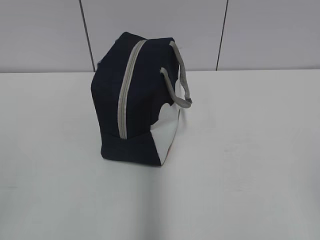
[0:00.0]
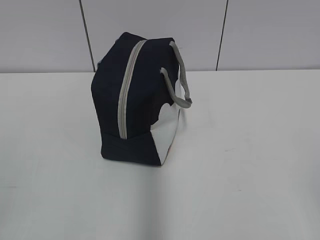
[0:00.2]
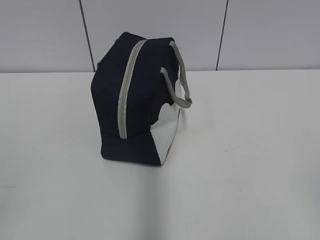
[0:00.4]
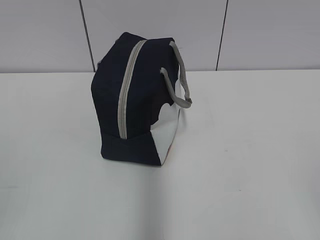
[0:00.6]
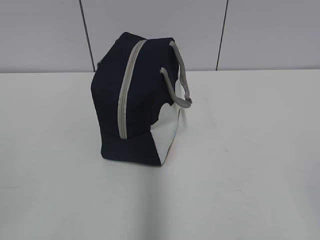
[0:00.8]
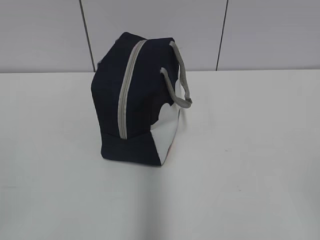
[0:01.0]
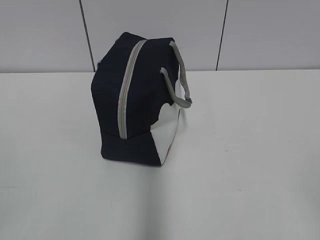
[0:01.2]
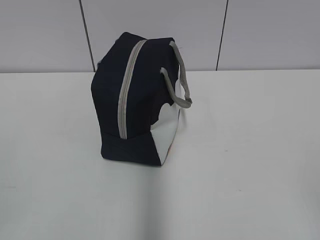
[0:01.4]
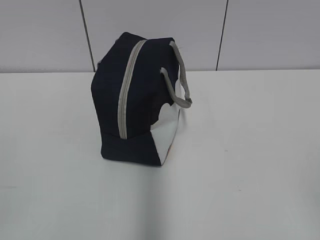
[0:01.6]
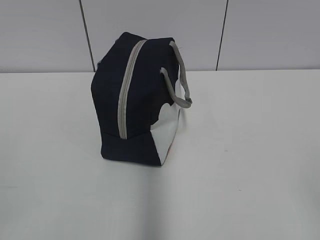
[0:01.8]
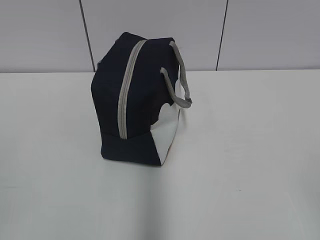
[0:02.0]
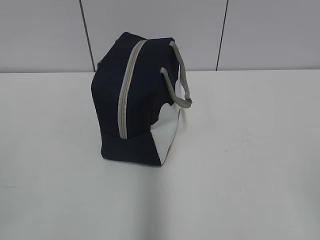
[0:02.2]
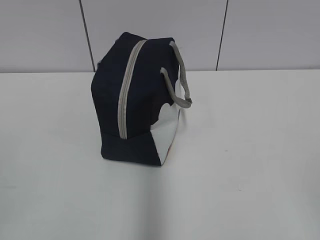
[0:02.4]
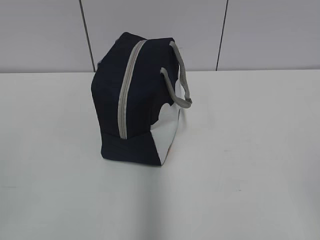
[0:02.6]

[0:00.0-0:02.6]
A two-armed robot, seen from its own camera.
0:01.2 to 0:02.6: Both grippers stay put.

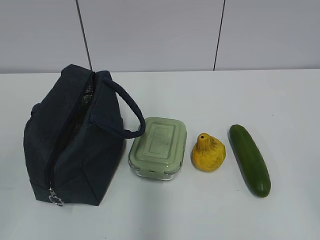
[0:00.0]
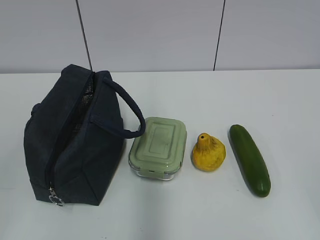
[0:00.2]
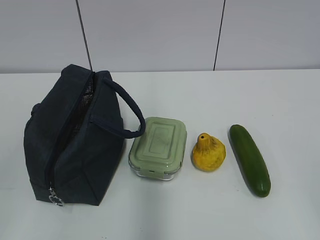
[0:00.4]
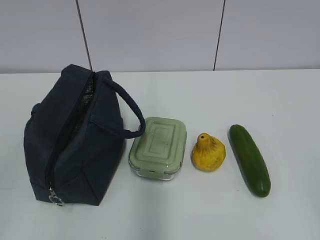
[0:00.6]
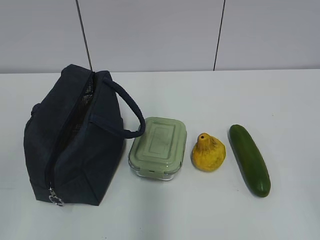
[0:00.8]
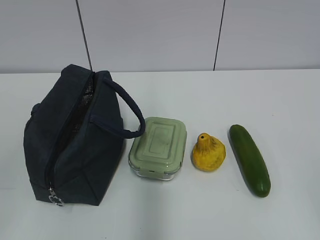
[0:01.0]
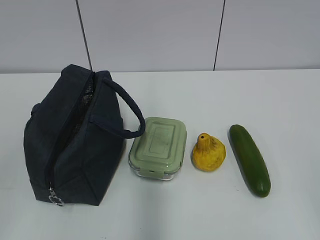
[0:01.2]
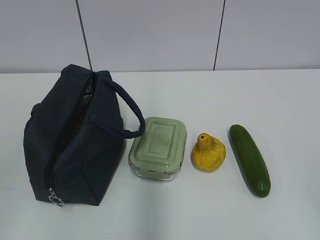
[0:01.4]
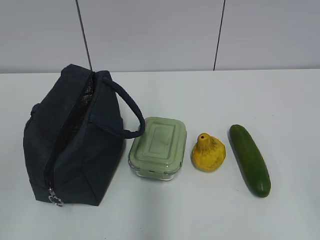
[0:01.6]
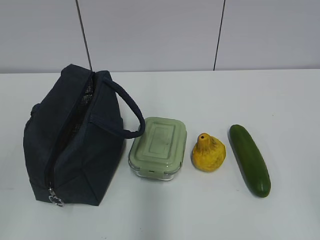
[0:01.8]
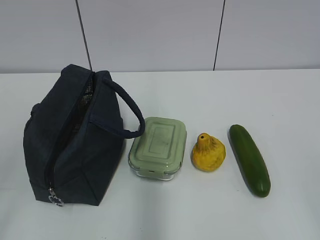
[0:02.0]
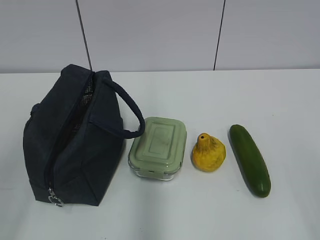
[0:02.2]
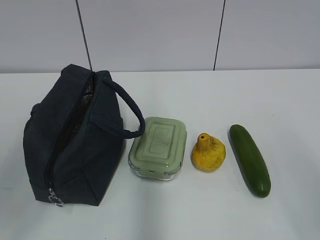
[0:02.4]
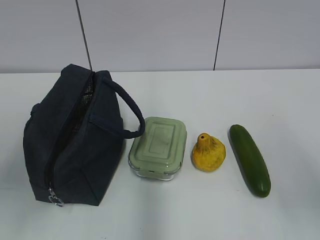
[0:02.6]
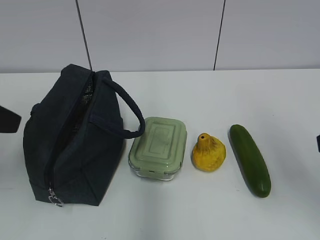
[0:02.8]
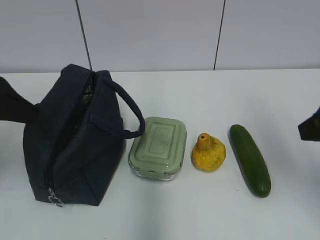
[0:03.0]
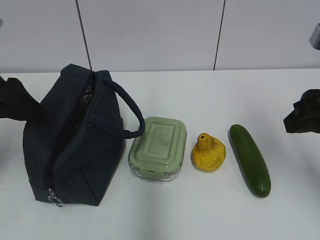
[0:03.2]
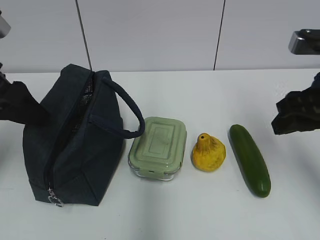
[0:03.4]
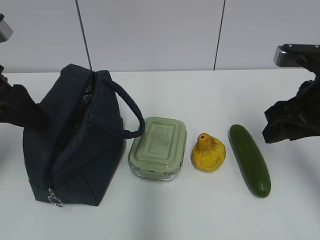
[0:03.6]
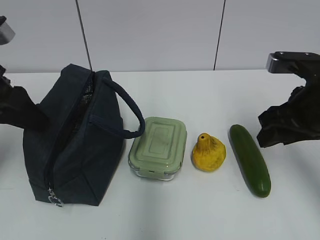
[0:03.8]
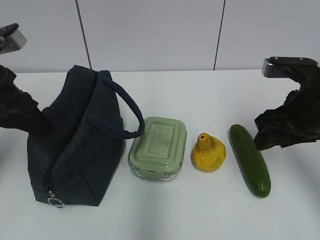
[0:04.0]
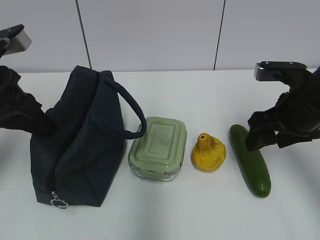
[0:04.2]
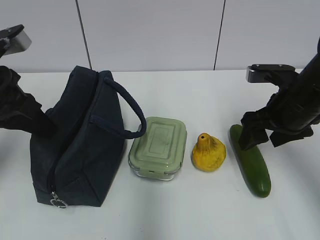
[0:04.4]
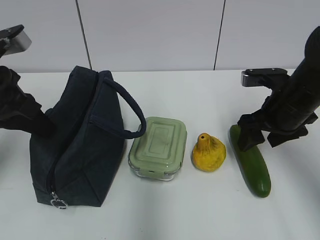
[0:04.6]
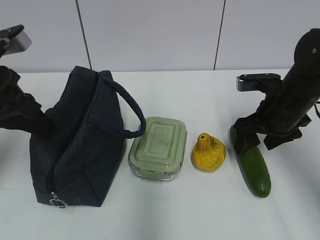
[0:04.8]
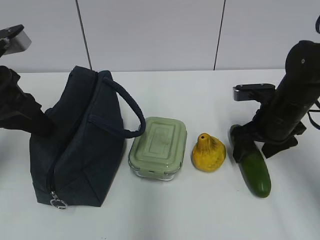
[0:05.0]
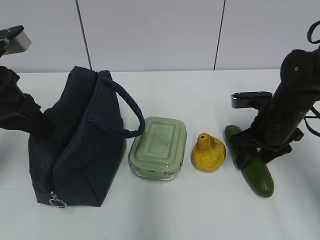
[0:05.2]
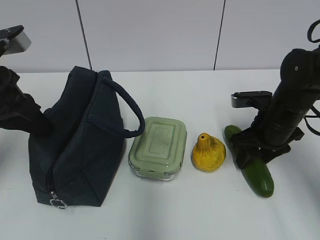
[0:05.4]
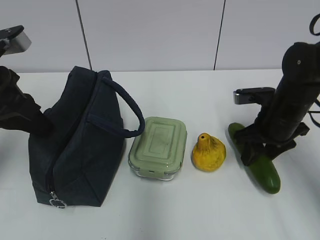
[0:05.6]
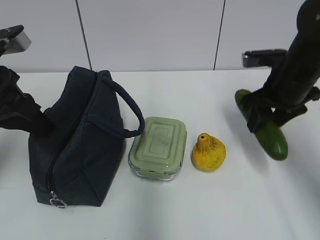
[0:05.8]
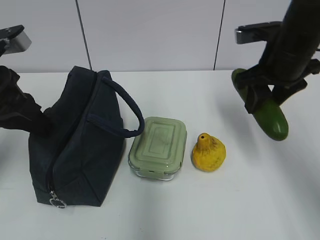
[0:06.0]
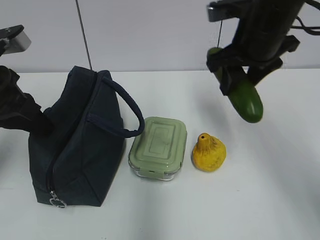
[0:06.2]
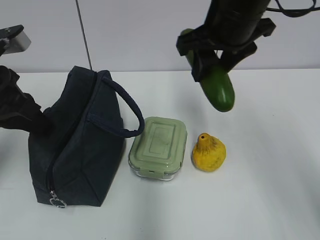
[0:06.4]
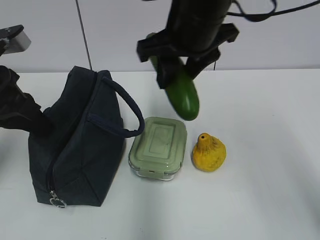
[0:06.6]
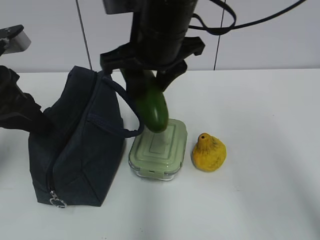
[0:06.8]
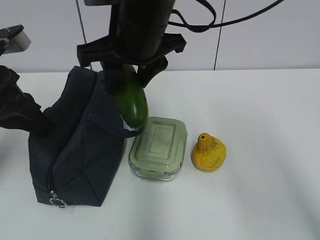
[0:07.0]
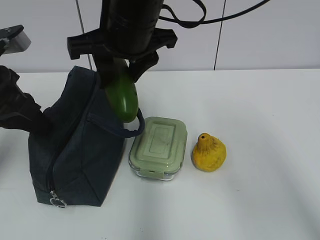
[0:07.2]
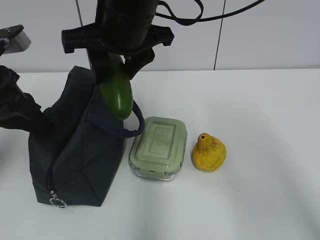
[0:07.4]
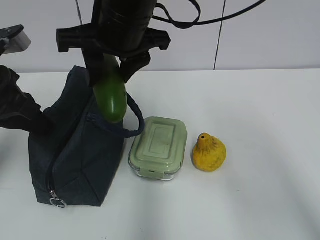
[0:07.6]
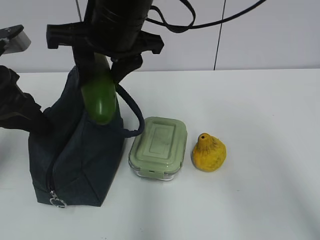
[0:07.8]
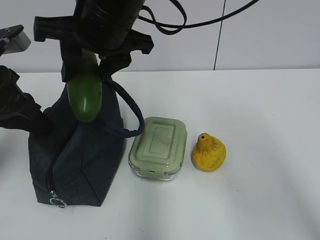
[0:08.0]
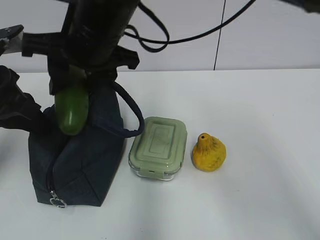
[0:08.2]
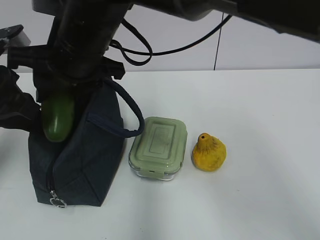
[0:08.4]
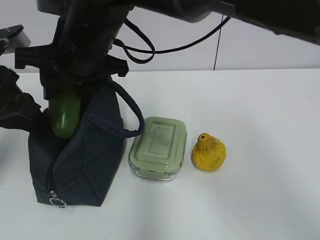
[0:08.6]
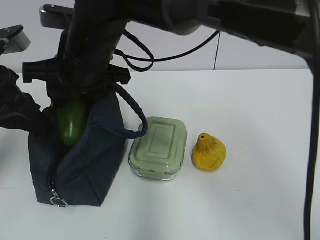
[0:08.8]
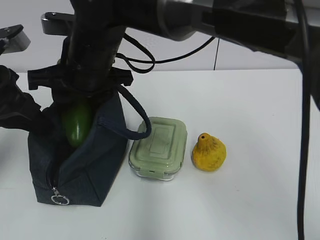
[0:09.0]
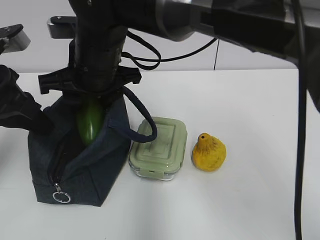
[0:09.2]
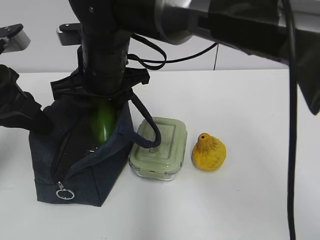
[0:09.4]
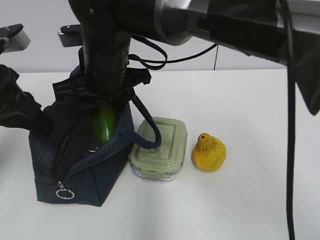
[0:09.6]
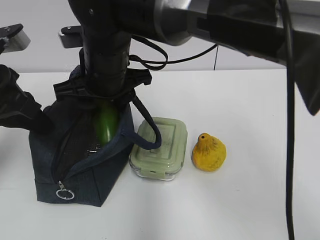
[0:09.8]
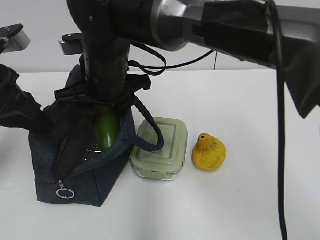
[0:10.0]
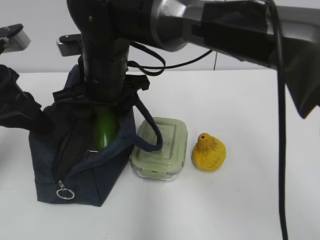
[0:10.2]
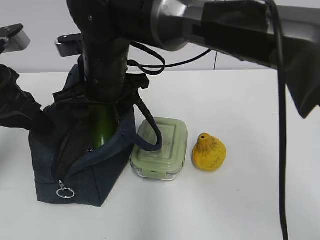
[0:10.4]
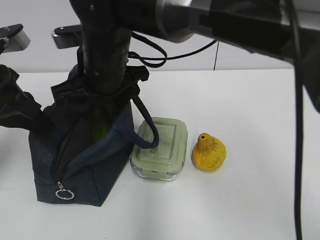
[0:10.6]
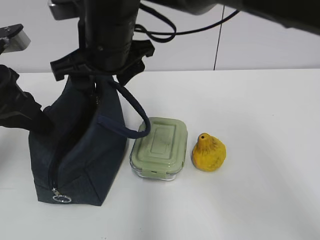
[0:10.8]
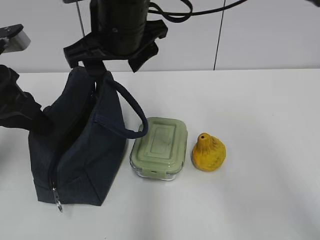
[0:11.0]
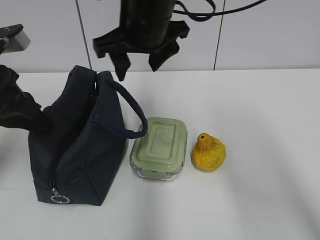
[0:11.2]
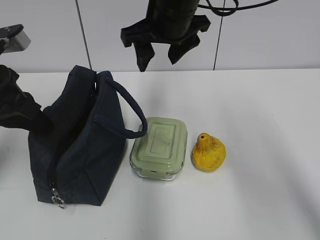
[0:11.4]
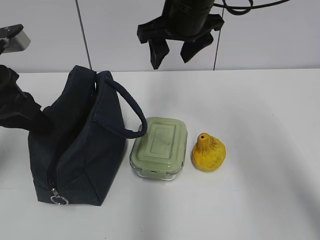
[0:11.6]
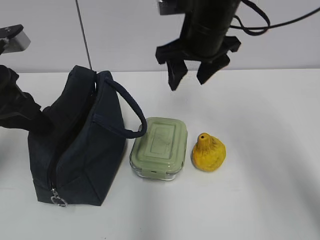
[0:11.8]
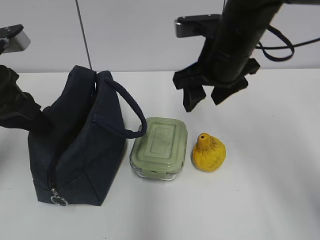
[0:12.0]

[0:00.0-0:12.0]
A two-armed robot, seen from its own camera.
0:01.6 to 0:03.0: The two grippers go about 25 cm forward.
0:03.0 to 0:04.4: The right gripper shifts approximately 15 cm forward and downward; the left gripper closes up.
0:04.4 to 0:06.0: The right gripper goes some 5 cm upward.
0:06.0 to 0:07.6: The right gripper travels to the left by some 20 cm.
0:07.6 to 0:09.0: The right gripper heads downward and to the left, covering some 10 cm.
0:10.4 to 0:12.0: The right gripper heads to the right, covering approximately 20 cm.

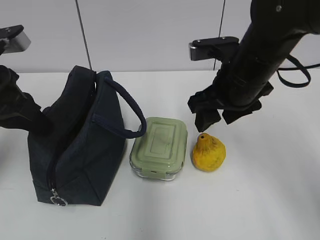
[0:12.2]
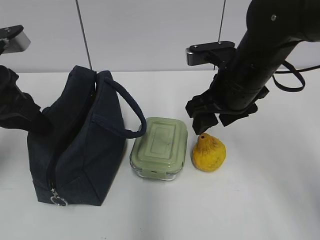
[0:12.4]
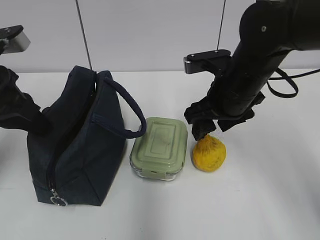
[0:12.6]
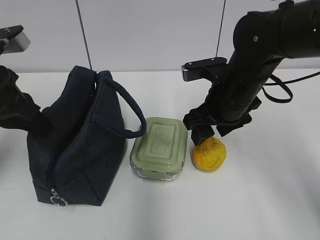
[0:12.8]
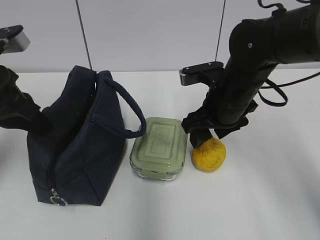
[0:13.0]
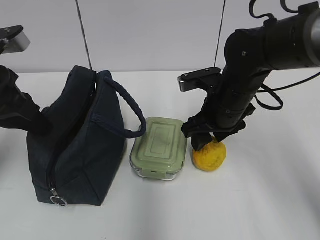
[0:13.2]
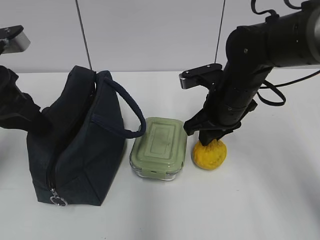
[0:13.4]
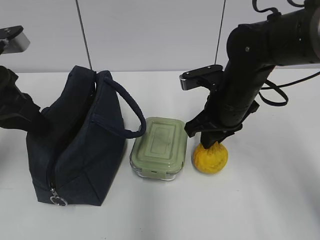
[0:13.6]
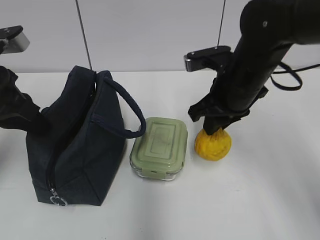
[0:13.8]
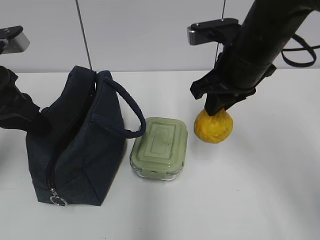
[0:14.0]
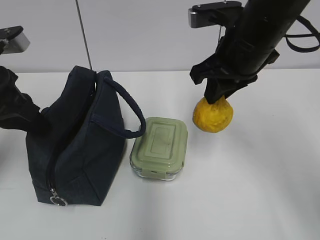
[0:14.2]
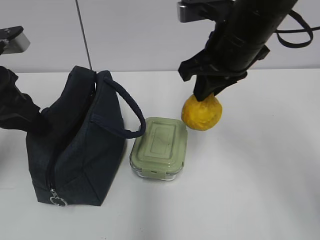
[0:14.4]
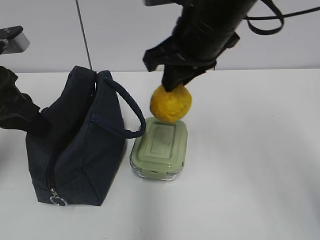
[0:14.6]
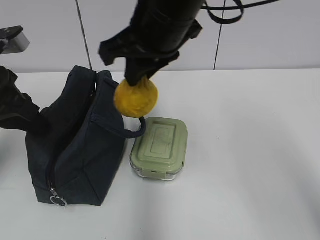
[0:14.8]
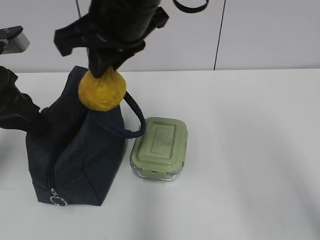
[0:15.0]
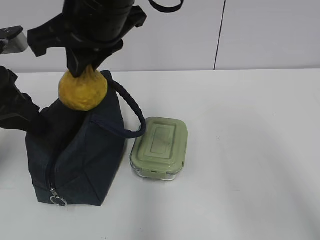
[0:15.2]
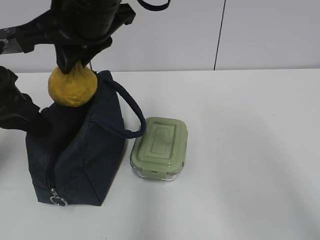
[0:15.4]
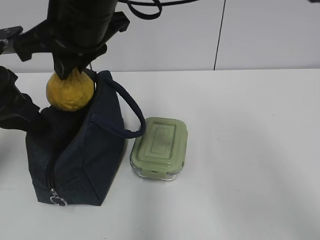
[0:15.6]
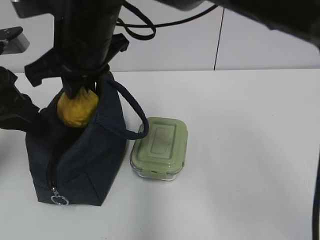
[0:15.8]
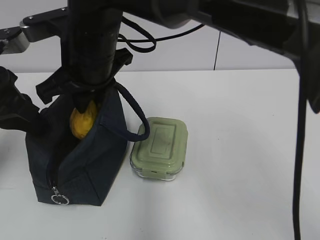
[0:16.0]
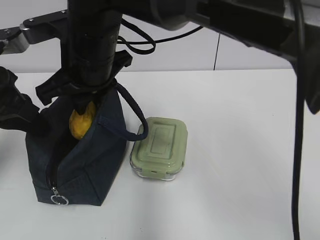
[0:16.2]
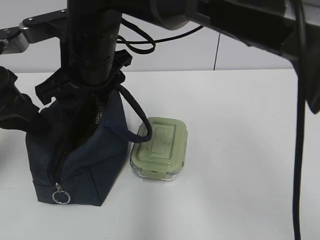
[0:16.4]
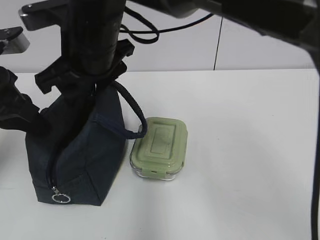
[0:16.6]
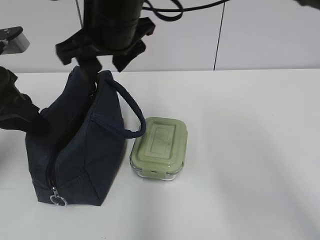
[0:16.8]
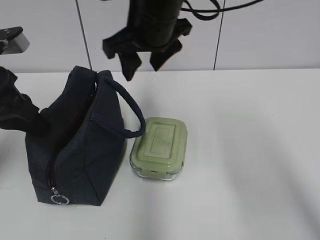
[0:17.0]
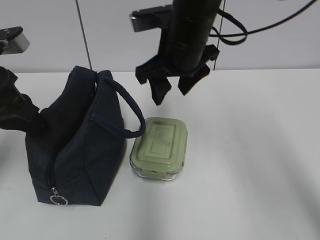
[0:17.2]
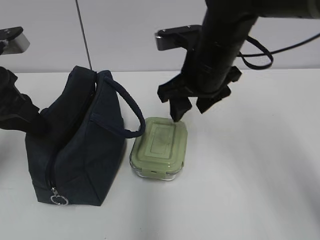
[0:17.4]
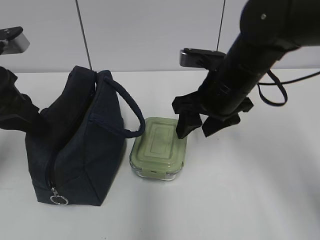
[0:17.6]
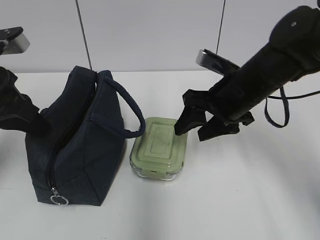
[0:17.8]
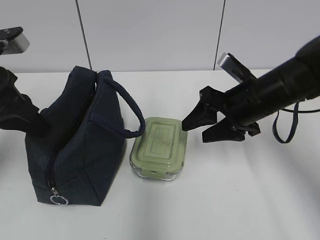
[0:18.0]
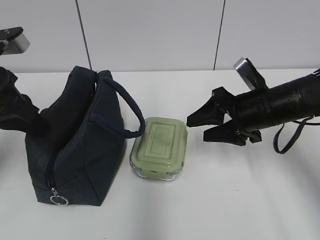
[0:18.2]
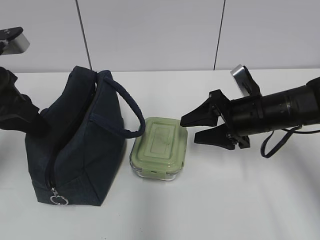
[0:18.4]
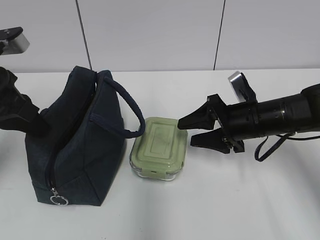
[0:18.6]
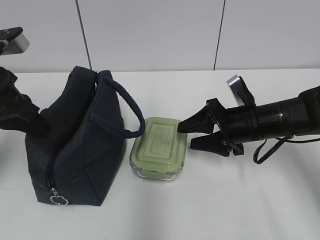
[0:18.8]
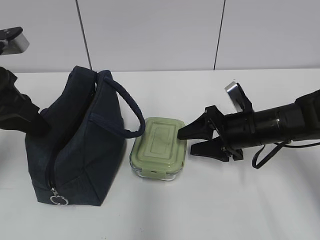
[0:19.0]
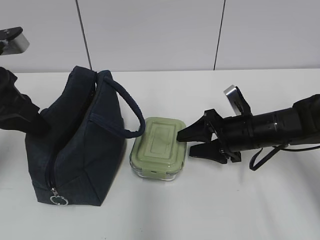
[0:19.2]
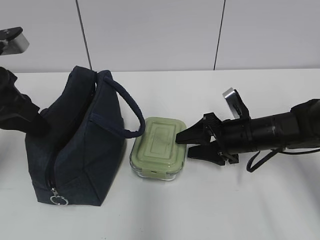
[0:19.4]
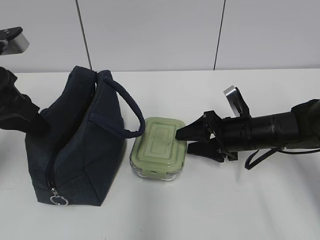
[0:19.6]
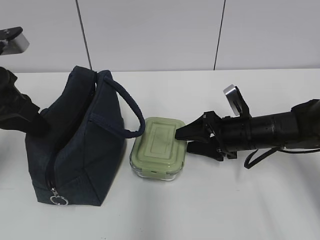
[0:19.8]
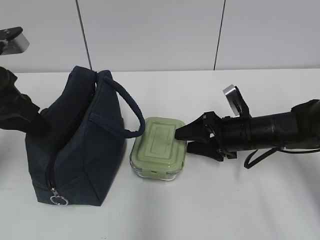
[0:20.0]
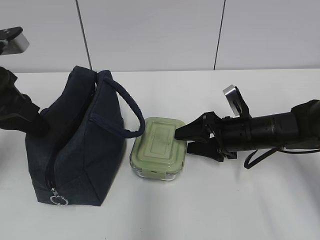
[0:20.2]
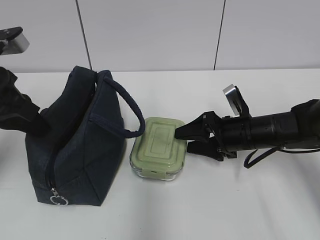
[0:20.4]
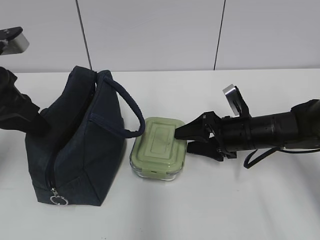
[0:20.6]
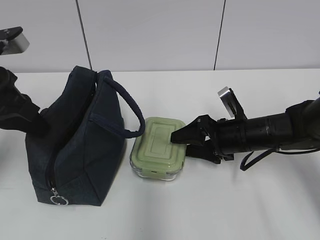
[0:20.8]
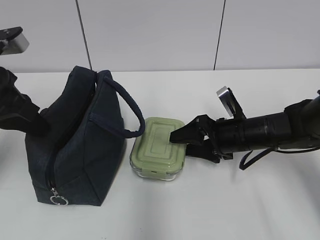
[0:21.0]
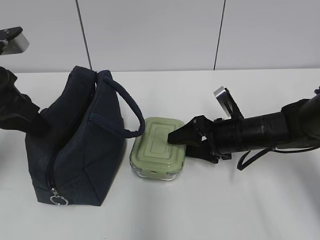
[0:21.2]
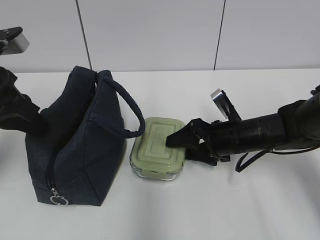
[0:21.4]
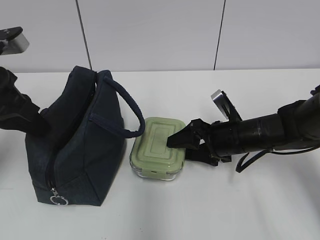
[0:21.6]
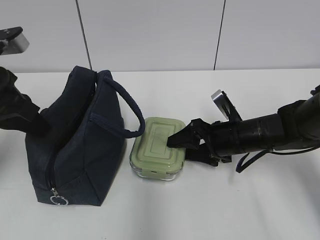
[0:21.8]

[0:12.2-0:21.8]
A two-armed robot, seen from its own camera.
0:12.2 to 0:13.8: The right gripper closes.
0:13.8 to 0:15.4: The right gripper travels to the left and upward by about 20 cm.
0:15.4 to 0:17.0: The right gripper goes approximately 10 cm to the right and forward, and opens up.
0:17.0 to 0:18.6: The right gripper travels downward and to the right by roughly 25 cm.
0:18.6 to 0:21.8: There are only small adjustments of the grippers.
